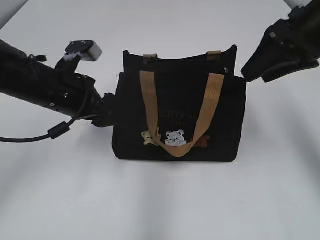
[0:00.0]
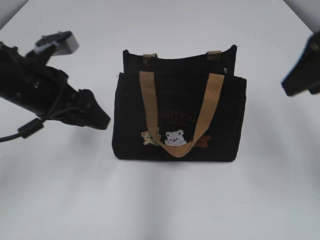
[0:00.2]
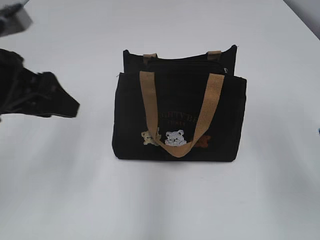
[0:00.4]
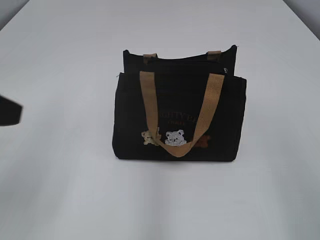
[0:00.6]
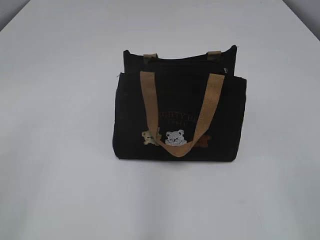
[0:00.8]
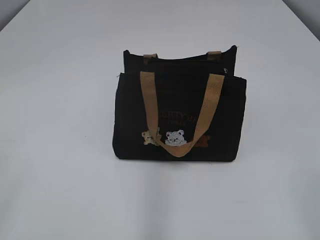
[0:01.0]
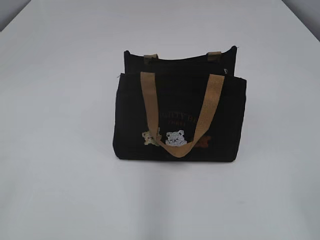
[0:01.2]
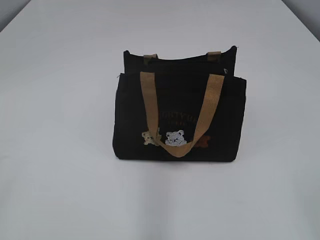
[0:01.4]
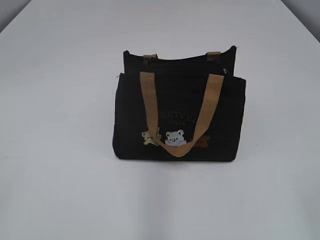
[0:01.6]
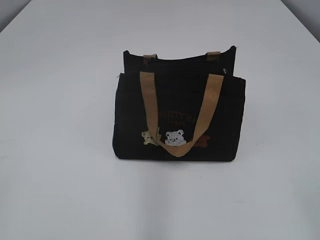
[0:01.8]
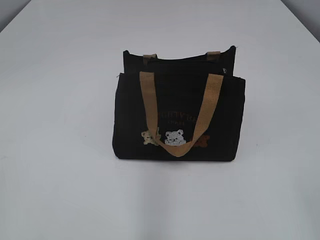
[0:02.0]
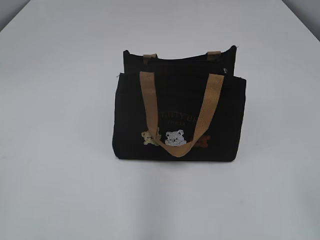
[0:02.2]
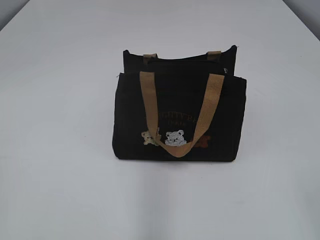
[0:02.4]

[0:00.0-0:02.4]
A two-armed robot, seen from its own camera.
0:00.0 to 0:01.2: The left gripper travels backward and to the left by some 35 cm. Meanwhile the right gripper shifts approximately 30 cm backward.

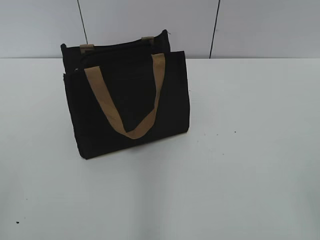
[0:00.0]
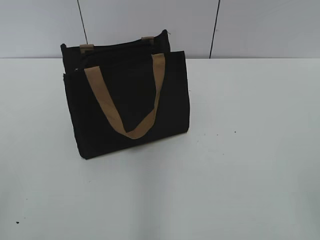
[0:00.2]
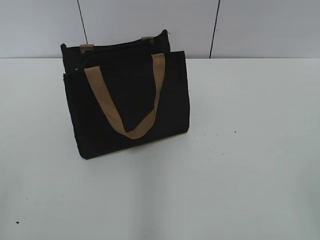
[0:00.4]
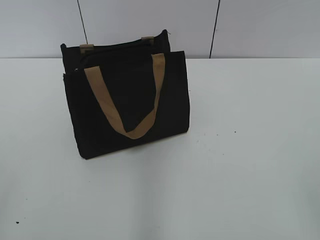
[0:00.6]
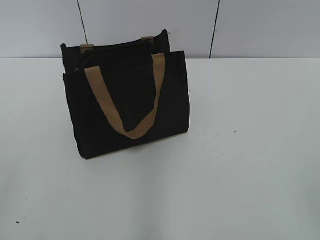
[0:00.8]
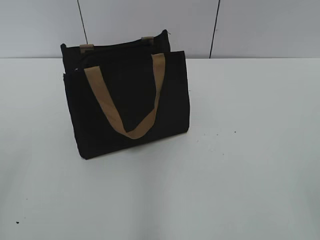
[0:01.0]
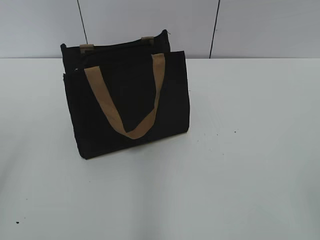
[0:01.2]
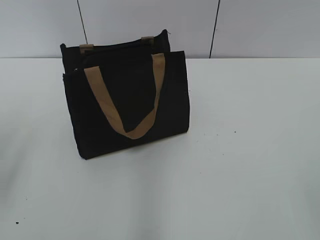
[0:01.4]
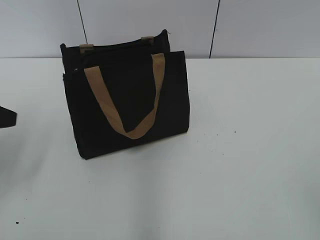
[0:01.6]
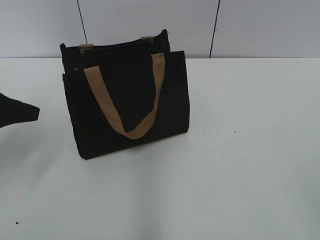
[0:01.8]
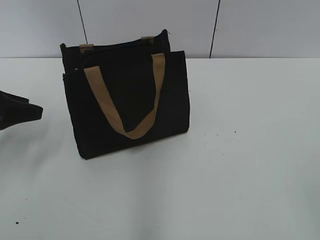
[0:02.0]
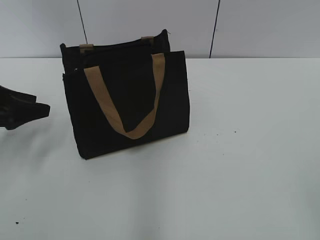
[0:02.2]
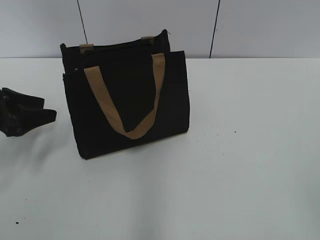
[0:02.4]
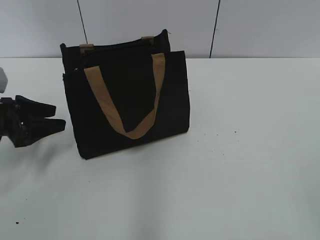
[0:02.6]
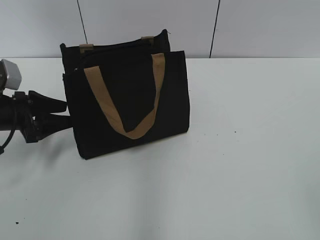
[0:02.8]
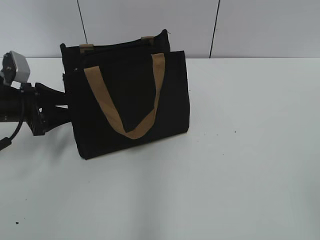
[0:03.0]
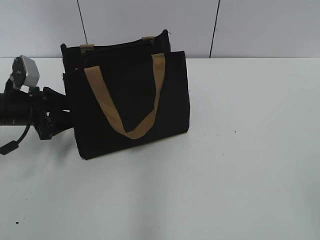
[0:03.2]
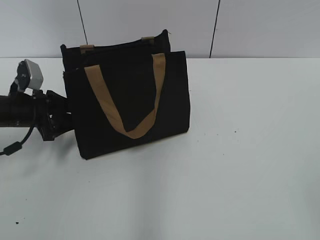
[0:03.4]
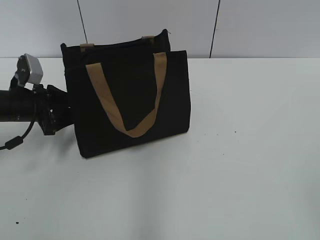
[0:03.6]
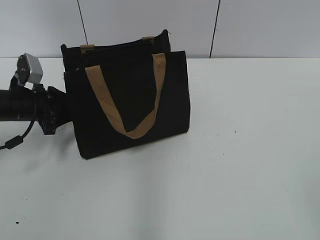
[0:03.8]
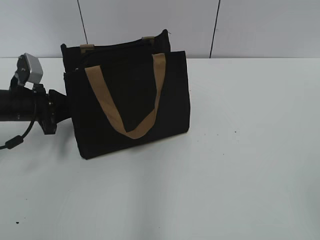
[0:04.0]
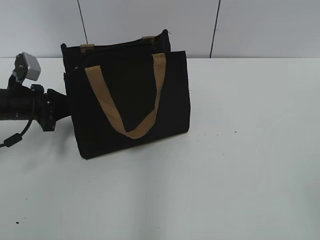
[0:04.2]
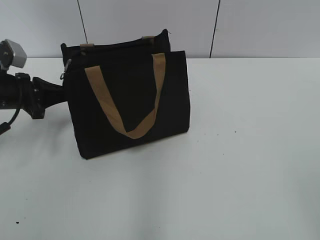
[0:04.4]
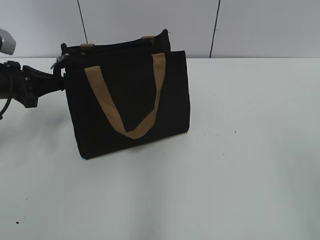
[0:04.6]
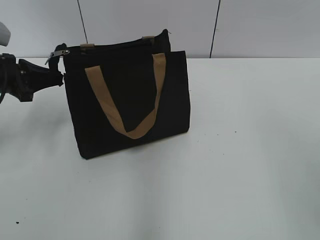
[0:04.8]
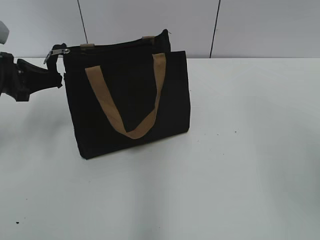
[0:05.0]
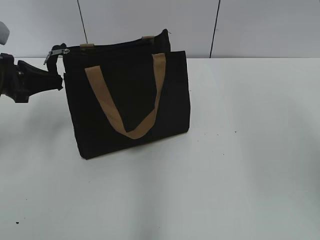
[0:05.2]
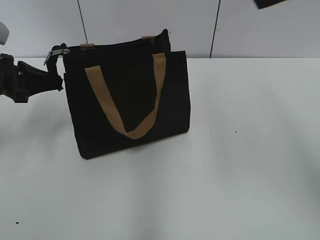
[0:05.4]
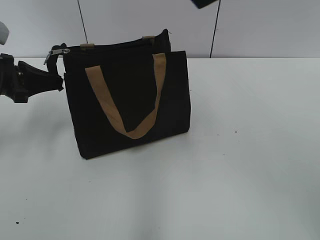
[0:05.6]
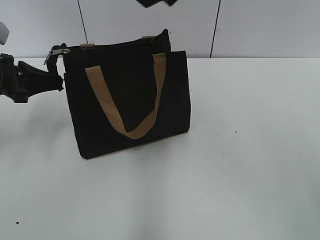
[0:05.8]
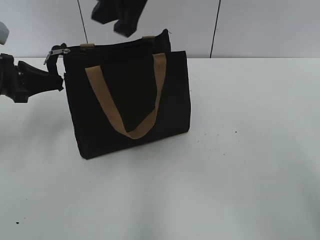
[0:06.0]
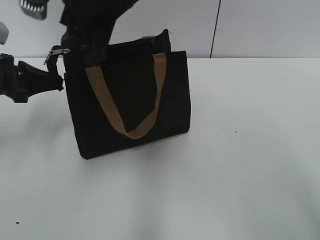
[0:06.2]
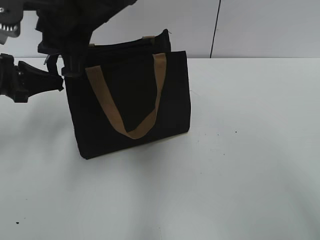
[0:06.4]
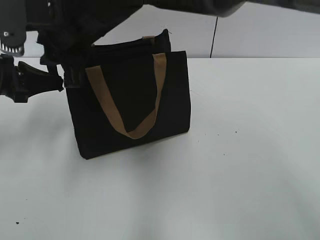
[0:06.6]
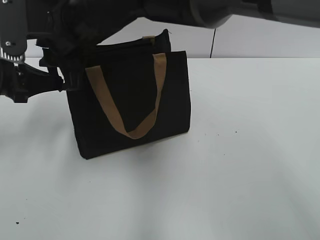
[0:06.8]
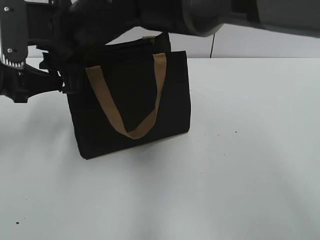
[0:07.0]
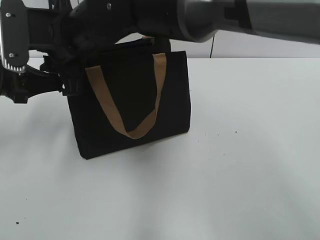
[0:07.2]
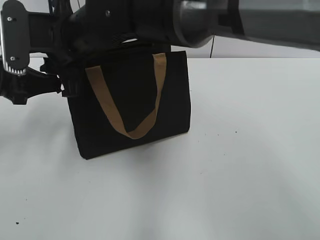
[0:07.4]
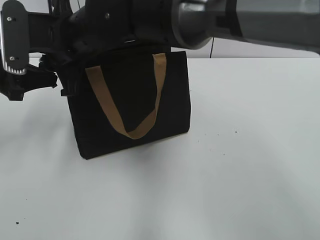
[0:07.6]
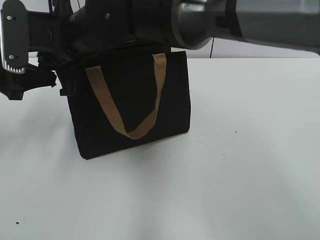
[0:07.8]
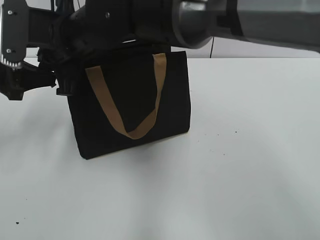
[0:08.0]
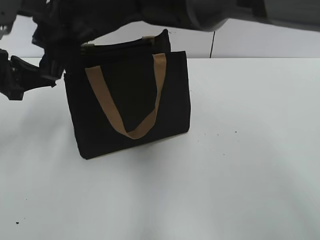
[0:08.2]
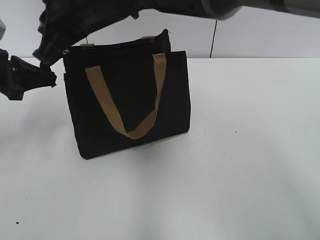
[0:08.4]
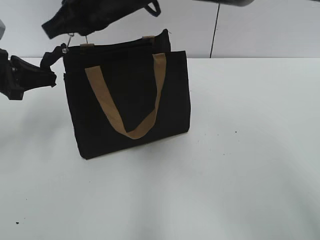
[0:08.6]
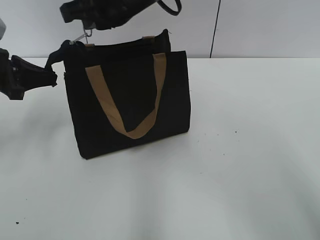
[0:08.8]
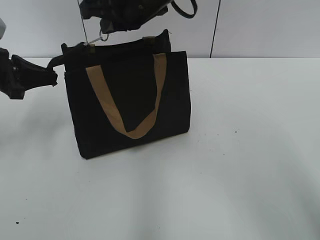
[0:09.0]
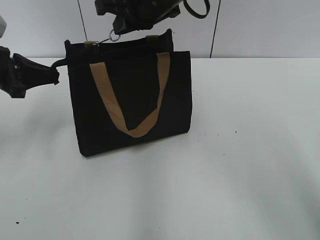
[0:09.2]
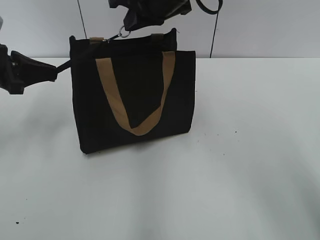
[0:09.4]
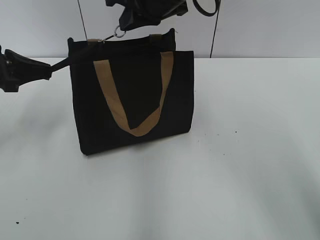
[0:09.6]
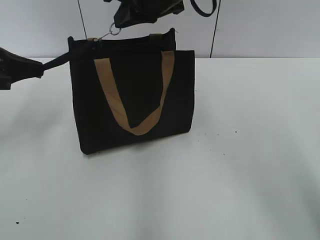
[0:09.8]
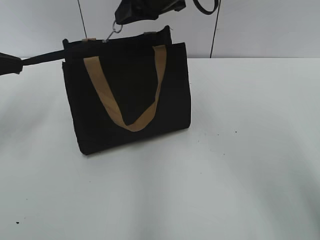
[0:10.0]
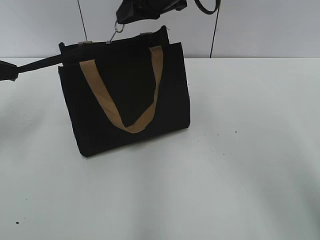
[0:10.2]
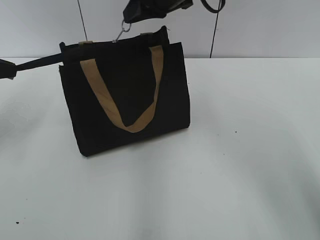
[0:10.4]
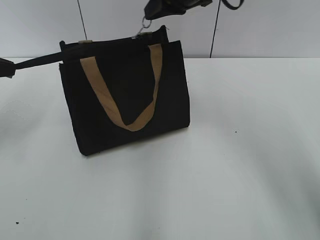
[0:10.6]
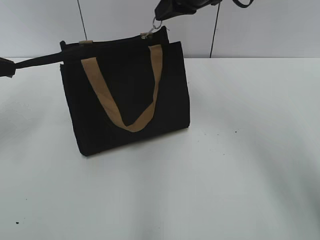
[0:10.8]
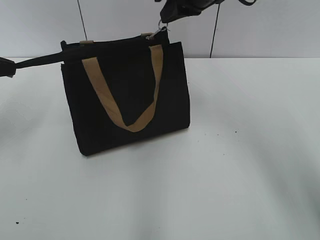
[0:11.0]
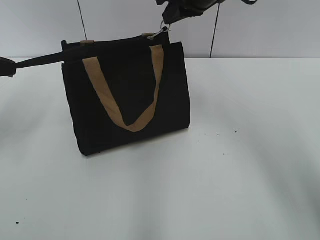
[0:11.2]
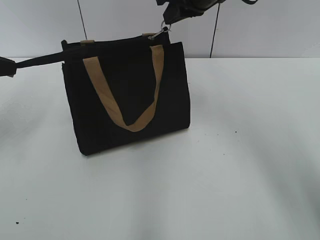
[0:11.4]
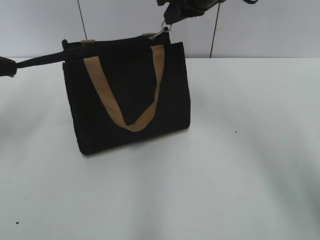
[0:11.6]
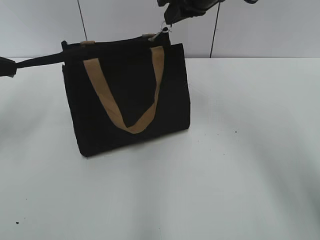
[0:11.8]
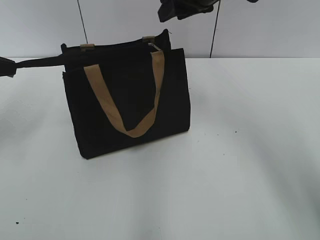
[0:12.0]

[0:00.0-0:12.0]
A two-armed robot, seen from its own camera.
Step, 0:00.0 to 0:11.8: Zip up the bag with your right hand.
0:01.6 to 0:03.0: The left gripper goes about 20 cm forward and downward.
0:03.0 to 0:04.4: The left gripper closes.
0:04.4 to 0:06.0: The left gripper goes approximately 5 cm upward, while the right gripper moves forward and to the left, about 40 cm, and closes its fingers.
0:06.0 to 0:07.6: The right gripper heads downward and to the left, covering some 15 cm.
0:07.6 to 0:09.0: The right gripper moves to the right, roughly 10 cm, and closes its fingers.
0:09.0 to 0:10.4: The right gripper moves about 5 cm. The left gripper moves to the left, about 5 cm.
0:10.4 to 0:12.0: The right gripper moves to the right, about 5 cm, and opens its fingers.

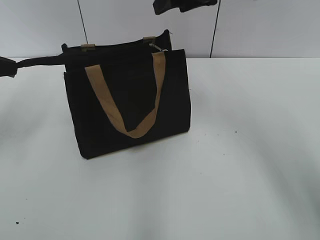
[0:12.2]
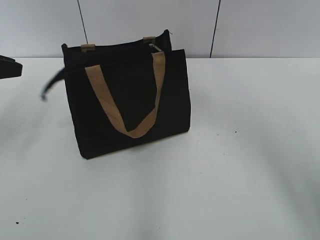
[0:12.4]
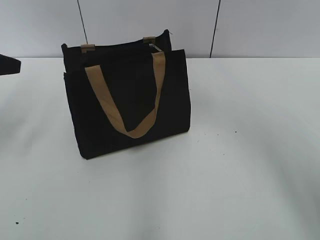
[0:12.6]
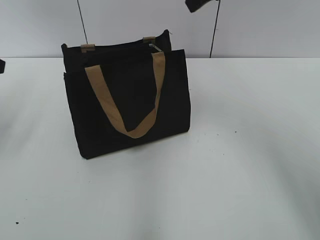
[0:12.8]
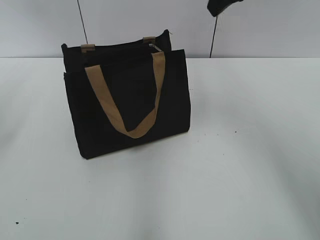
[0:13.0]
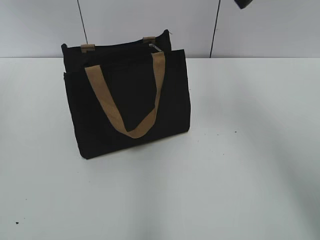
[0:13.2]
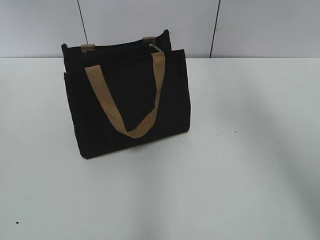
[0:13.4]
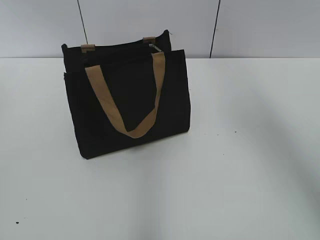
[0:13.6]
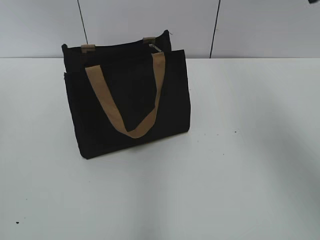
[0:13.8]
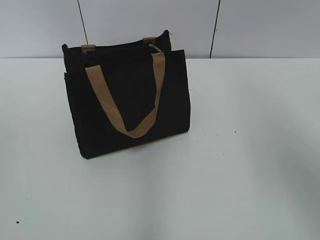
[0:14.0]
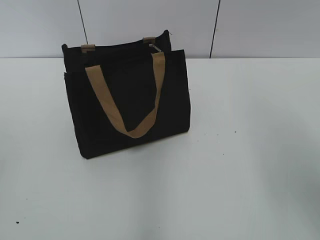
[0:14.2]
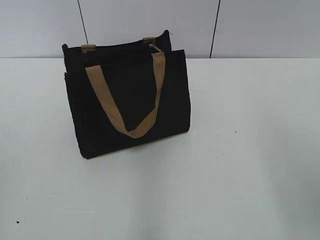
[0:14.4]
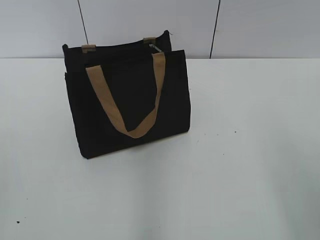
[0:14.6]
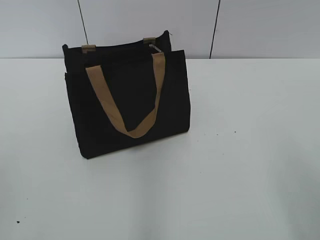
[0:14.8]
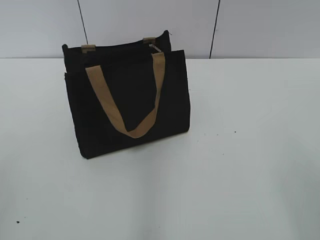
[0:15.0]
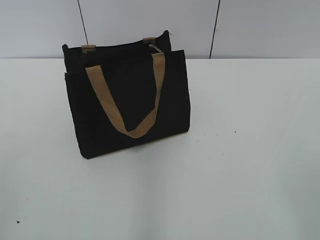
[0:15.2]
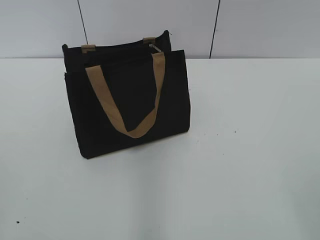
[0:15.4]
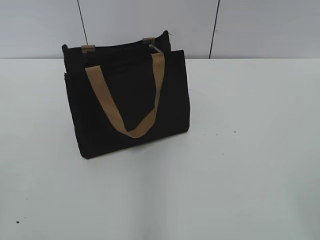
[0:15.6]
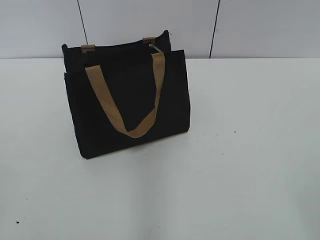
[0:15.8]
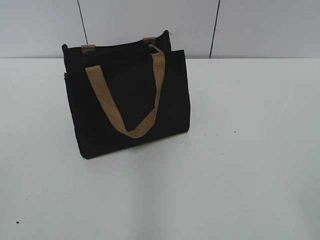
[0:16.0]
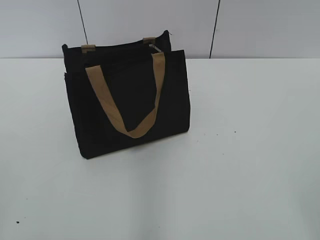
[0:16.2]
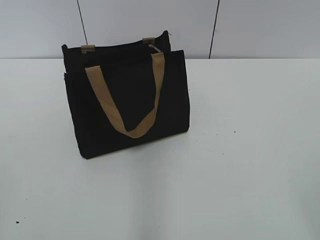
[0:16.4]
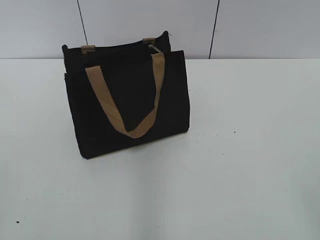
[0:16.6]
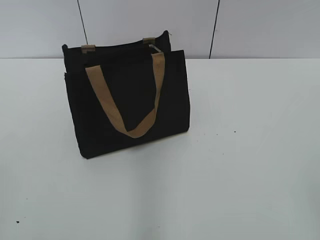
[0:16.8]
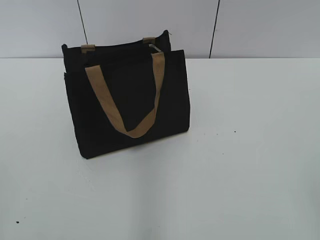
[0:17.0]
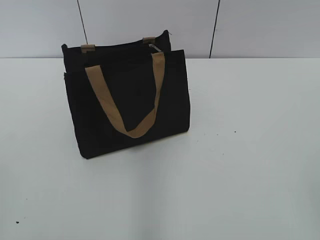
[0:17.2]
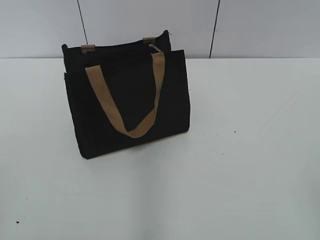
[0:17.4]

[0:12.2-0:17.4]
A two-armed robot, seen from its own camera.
0:12.2 to 0:14.0: The right gripper goes some 25 cm backward, to the right and upward. The left gripper travels backward and upward by about 20 cm, and opens up.
0:14.0 to 0:15.6: The right gripper shifts about 25 cm backward and downward.
